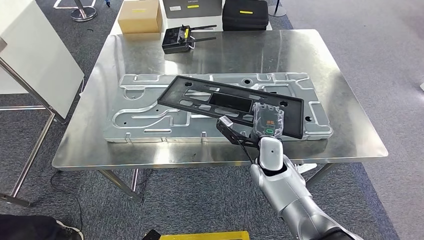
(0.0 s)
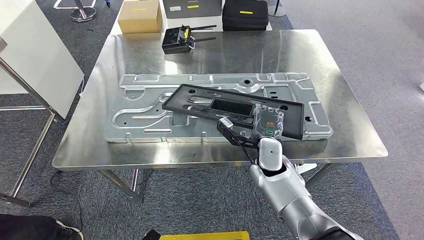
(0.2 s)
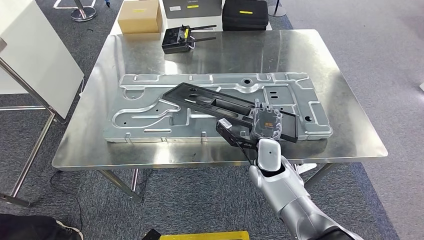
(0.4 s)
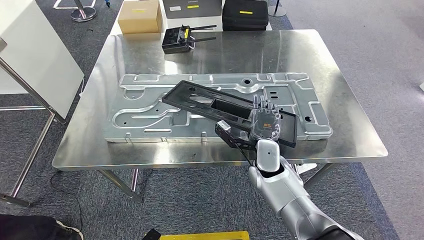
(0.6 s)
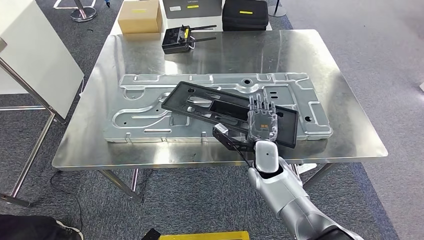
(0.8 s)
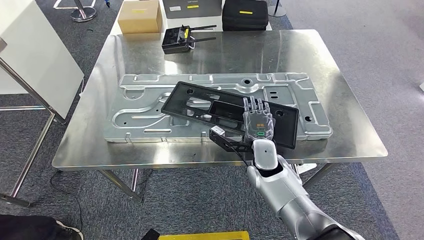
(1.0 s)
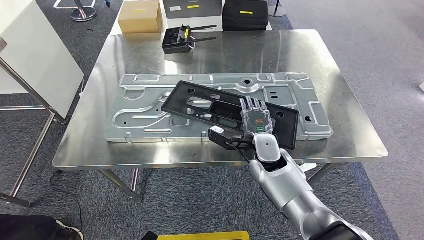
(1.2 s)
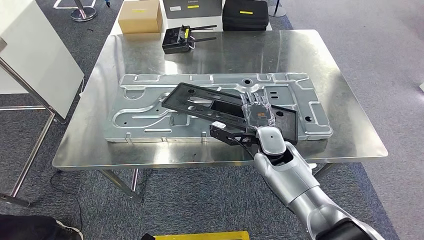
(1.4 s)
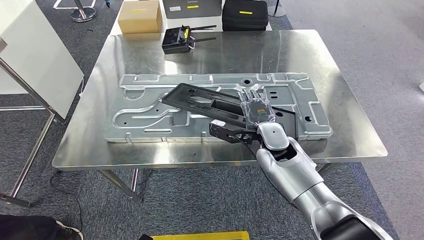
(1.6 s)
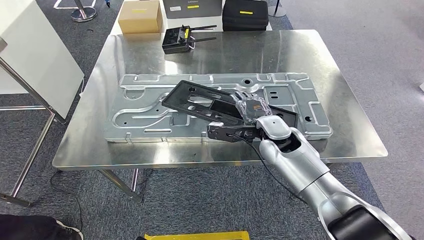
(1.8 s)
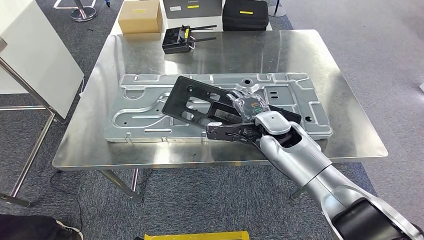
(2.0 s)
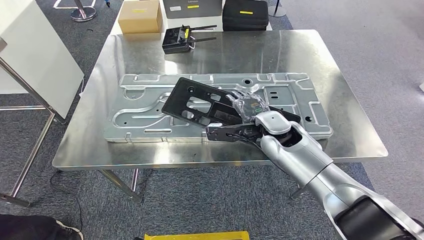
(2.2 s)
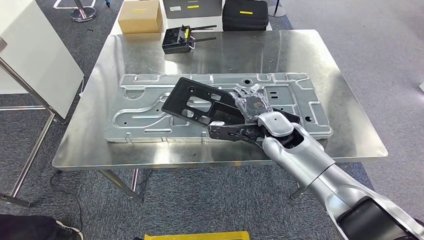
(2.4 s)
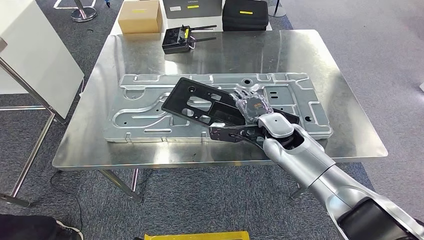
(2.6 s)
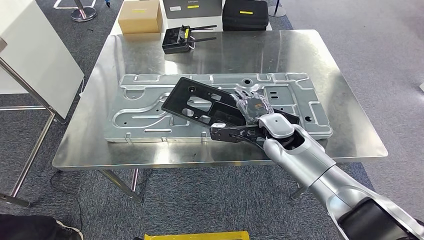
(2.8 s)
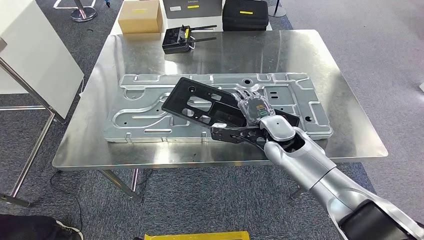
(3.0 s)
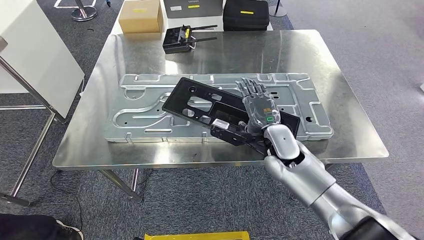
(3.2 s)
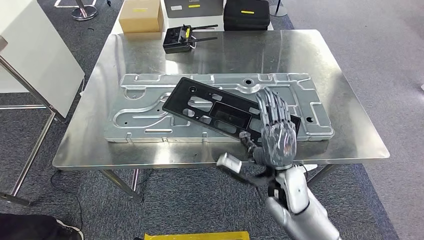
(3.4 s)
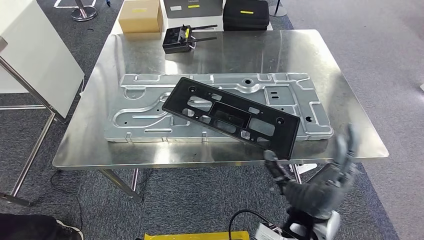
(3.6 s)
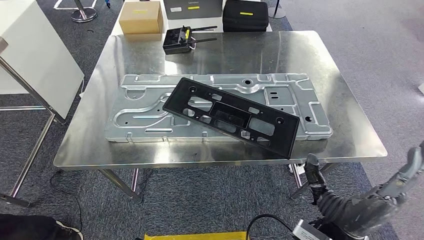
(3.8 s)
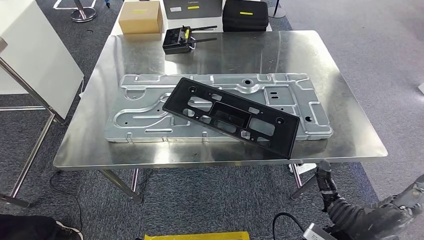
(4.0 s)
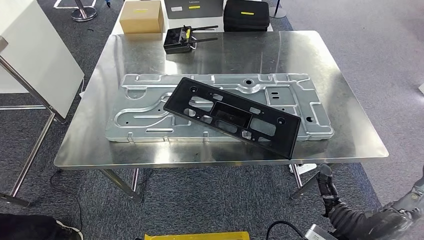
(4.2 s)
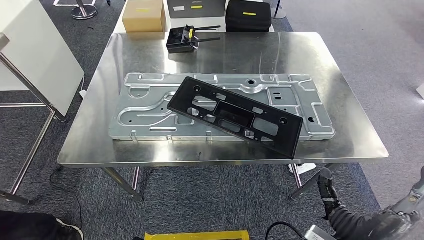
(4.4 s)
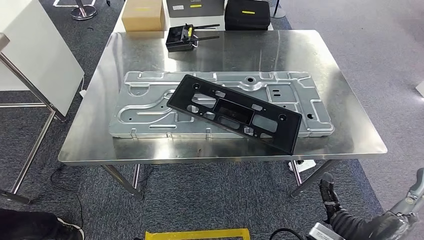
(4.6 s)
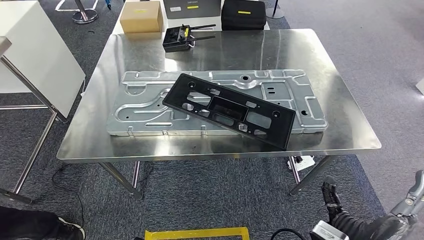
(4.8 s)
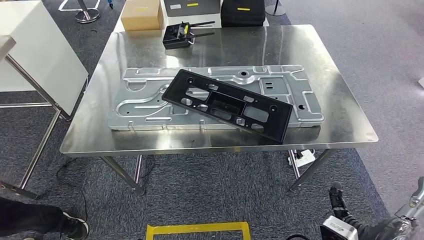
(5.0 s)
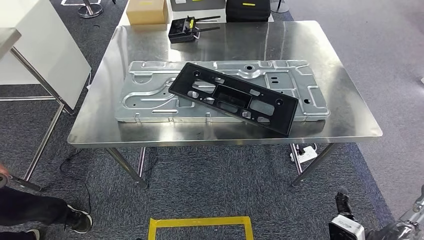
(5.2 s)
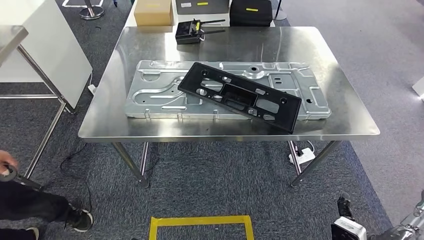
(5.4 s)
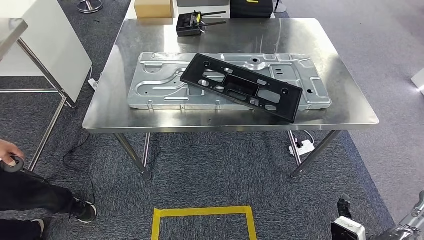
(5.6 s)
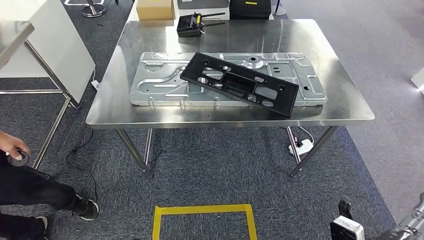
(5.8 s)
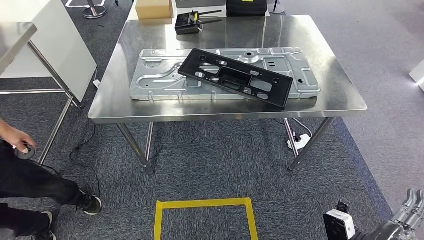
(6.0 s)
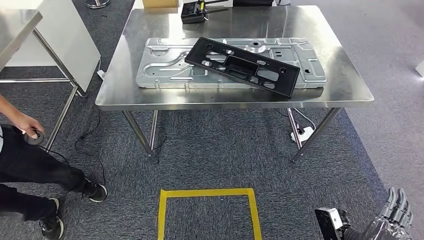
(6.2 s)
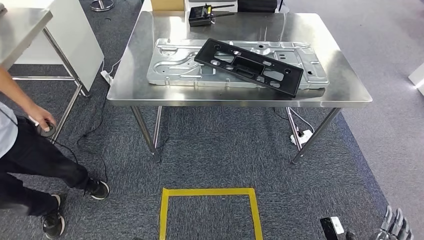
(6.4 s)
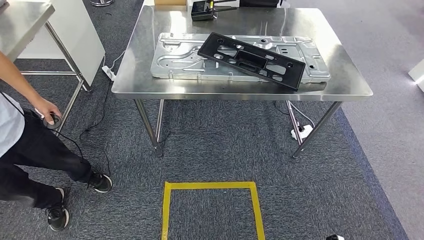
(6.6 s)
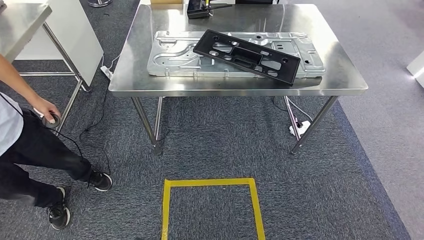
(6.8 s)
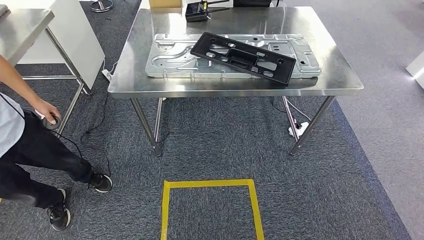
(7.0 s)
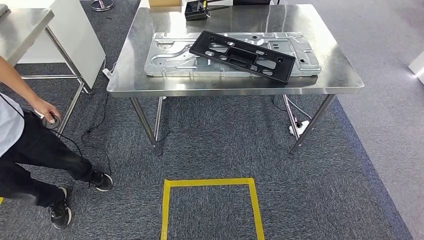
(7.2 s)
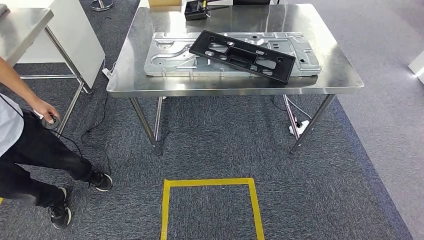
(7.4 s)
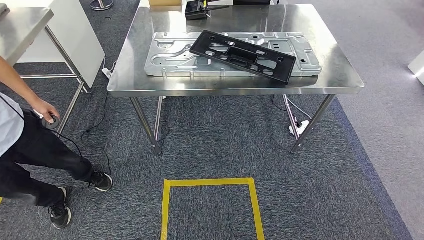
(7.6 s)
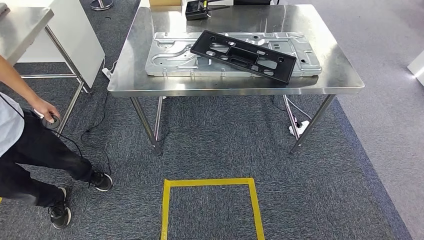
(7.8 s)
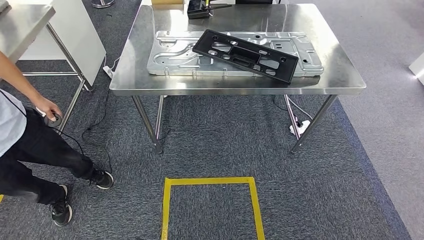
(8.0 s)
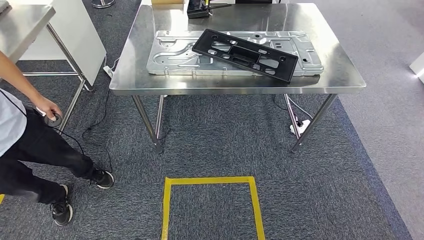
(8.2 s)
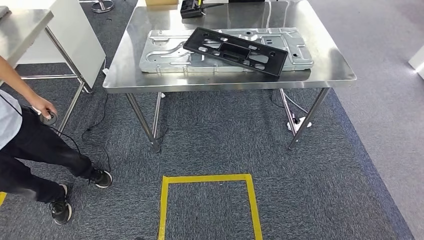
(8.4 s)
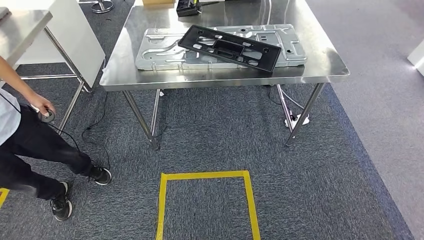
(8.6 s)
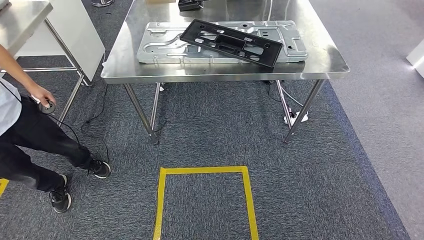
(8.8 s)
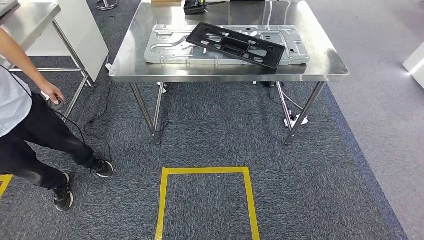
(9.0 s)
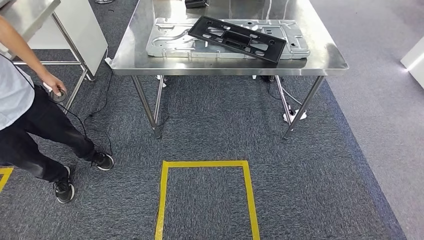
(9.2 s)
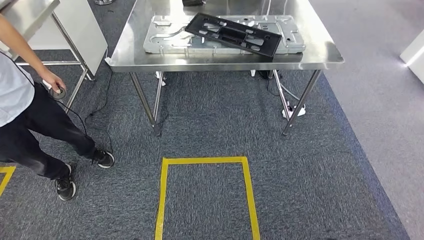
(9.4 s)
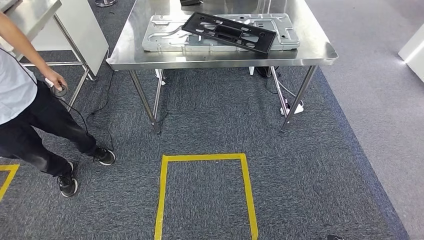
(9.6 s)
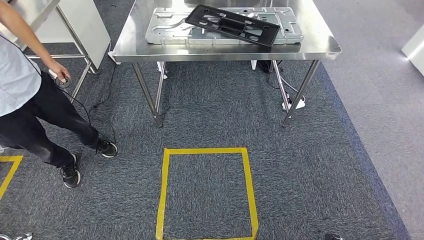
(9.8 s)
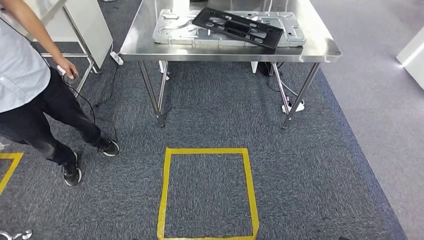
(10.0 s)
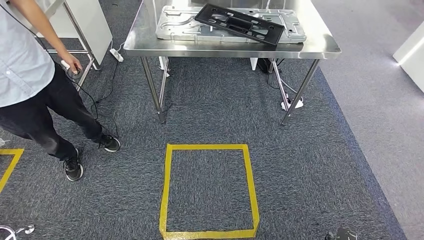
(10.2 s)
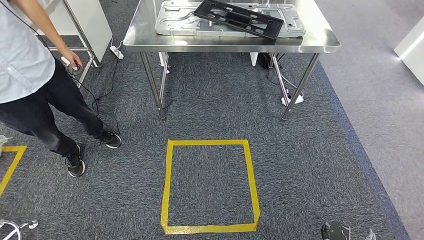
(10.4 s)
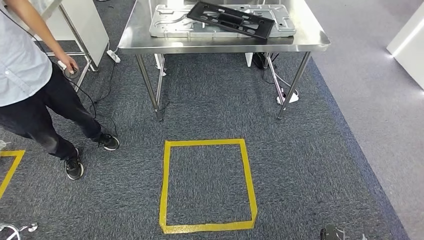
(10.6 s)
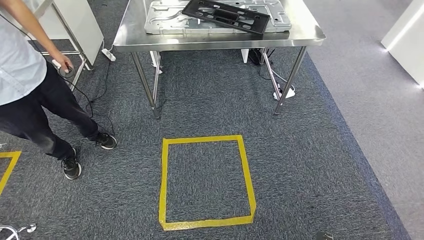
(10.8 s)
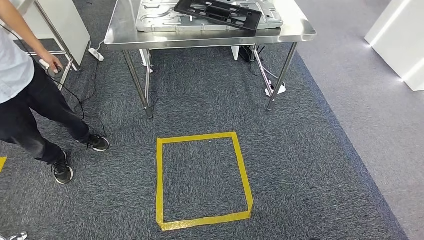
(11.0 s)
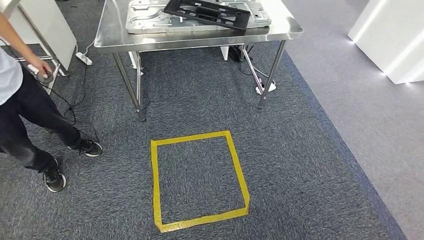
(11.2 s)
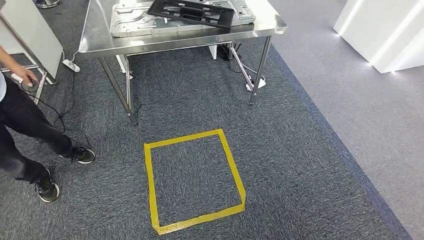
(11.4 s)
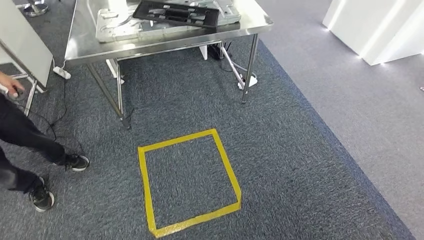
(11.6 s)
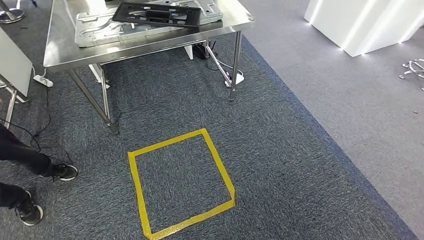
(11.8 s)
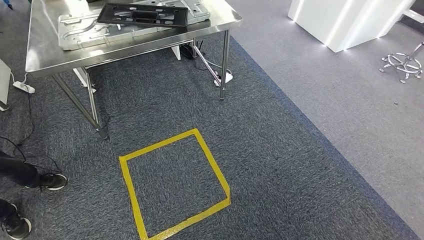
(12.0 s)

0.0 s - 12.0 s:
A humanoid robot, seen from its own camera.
Step, 0.0 s - 5.0 s: Insert the large material into the corresponding slot on the workbench.
0.0 s - 1.6 s: The right hand changes place by about 5 cm.
1.6 s - 3.0 s: There are only small adjustments of the hands.

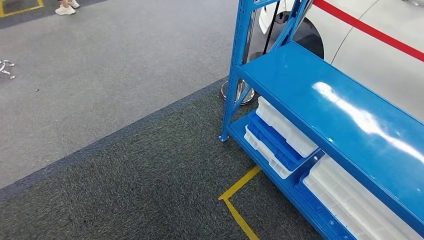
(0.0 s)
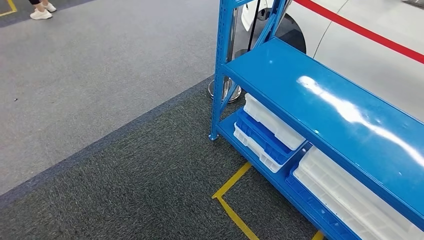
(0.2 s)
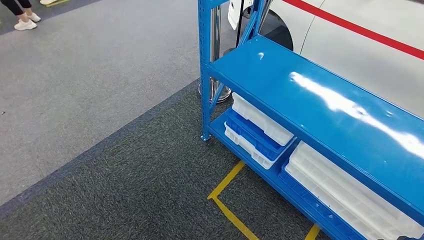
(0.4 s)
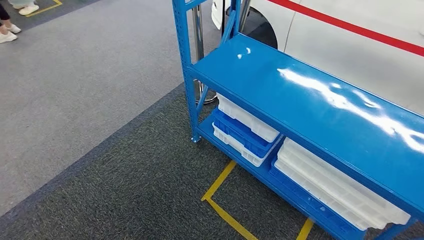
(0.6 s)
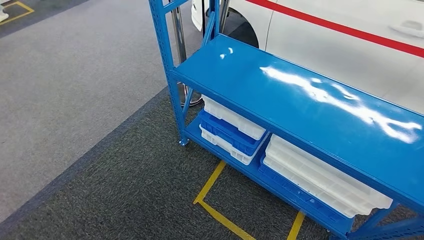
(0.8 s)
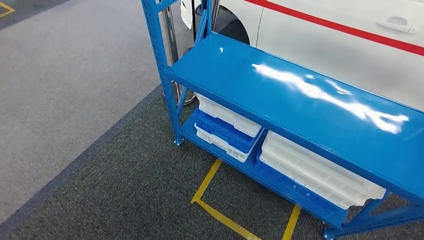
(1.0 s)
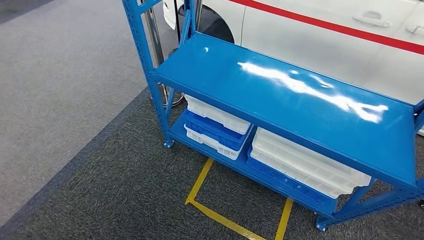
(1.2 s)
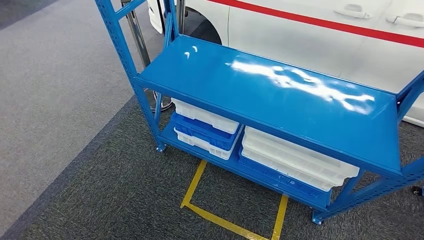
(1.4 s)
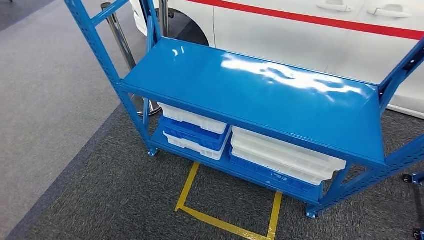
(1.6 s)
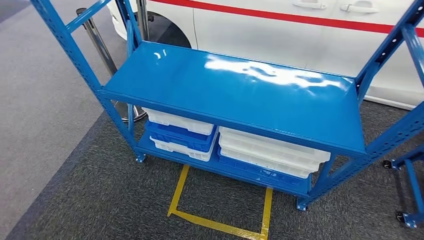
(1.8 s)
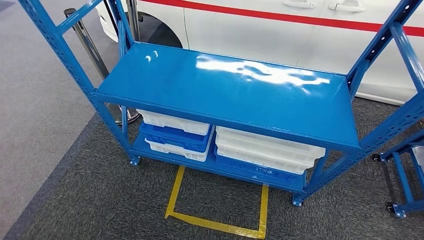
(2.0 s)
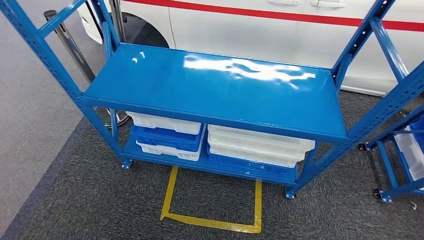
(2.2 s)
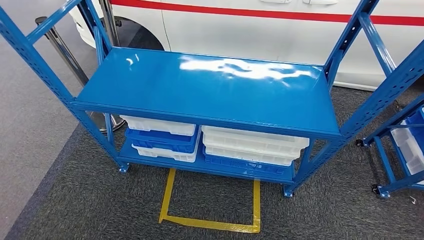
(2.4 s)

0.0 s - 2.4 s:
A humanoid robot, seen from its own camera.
Step, 0.0 s - 2.4 s: Return to the initial position at the shelf.

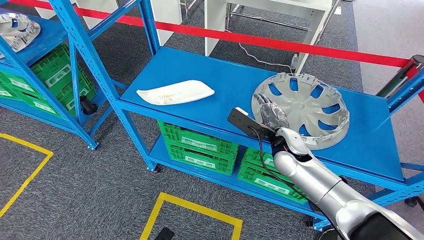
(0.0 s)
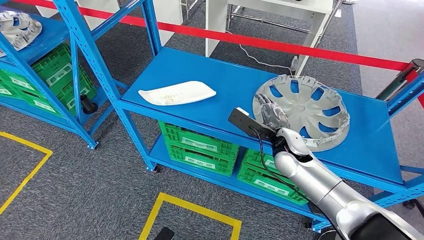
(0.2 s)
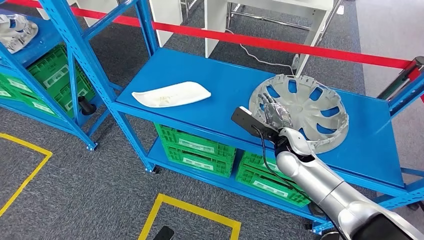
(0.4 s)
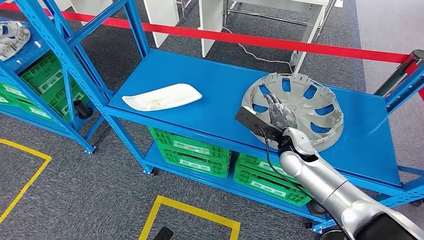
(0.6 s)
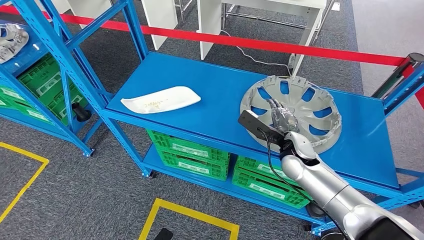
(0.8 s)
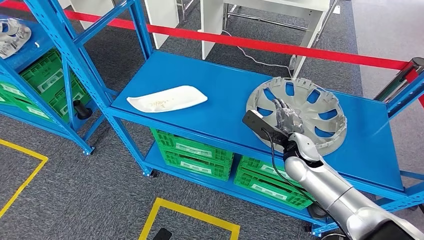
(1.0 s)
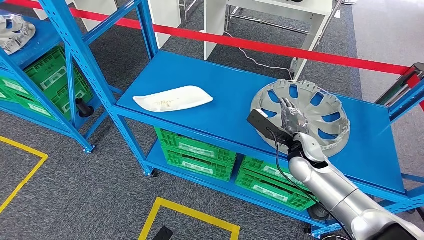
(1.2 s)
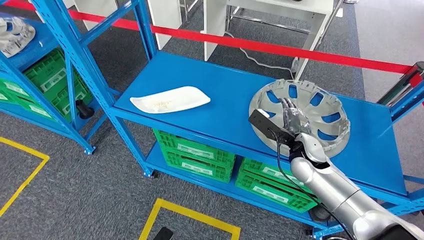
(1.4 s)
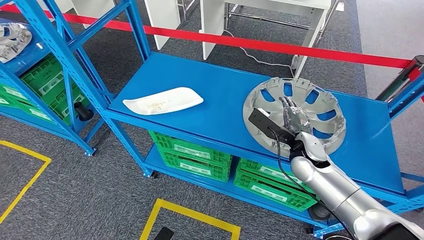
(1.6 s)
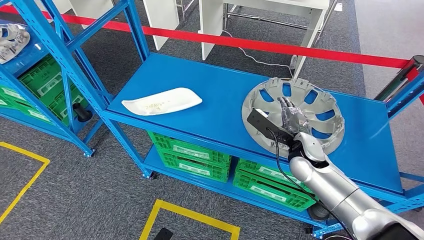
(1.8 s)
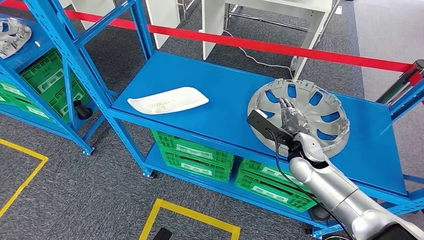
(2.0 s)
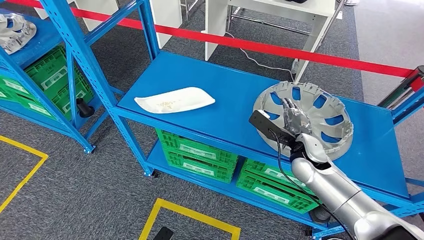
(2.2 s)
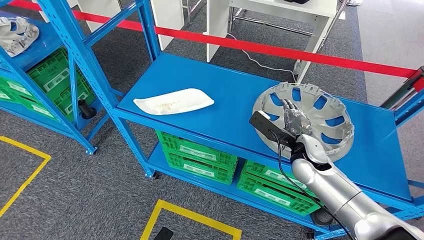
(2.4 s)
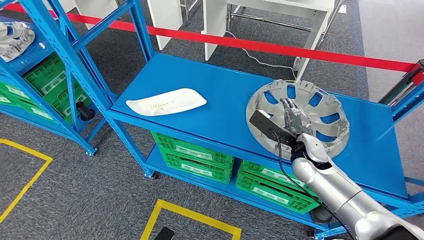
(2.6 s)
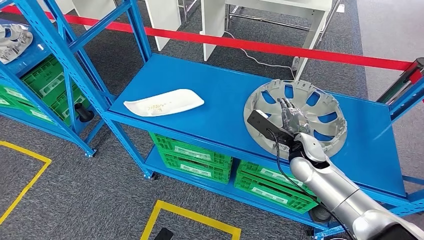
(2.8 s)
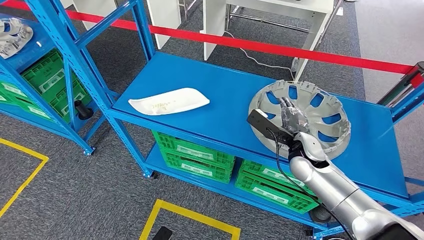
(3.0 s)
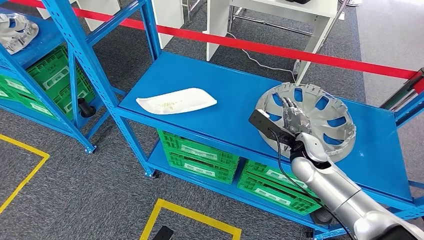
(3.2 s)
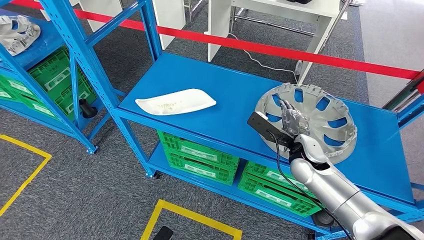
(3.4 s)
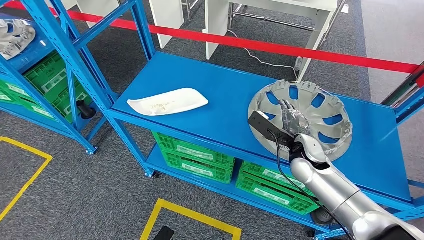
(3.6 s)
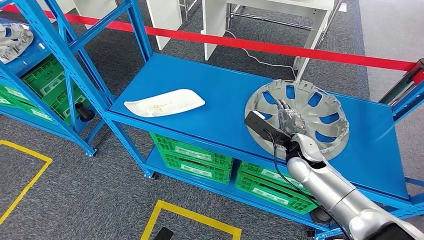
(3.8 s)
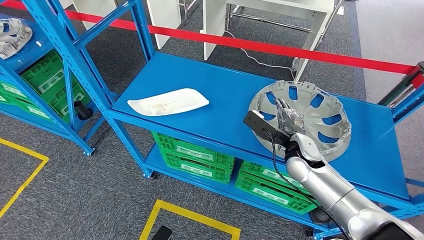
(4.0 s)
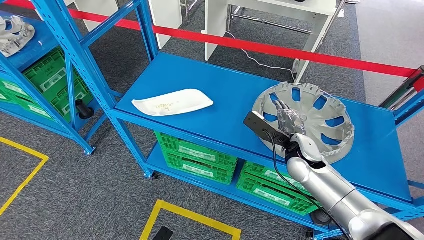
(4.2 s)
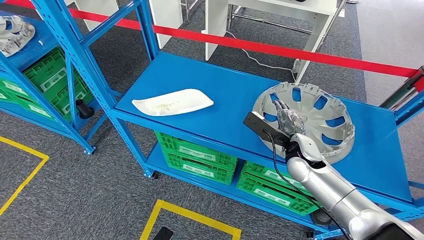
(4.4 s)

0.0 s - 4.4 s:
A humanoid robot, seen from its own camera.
1.4 s - 4.4 s: Neither hand changes place.
